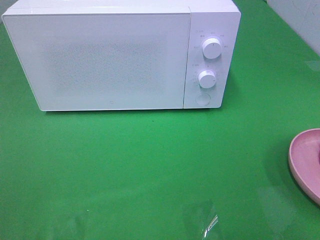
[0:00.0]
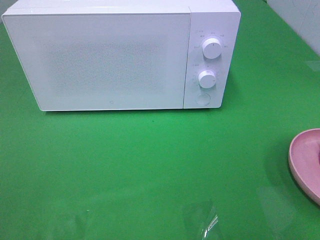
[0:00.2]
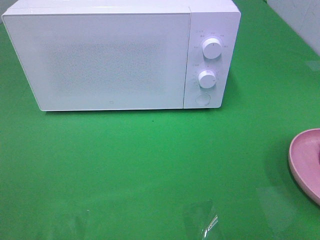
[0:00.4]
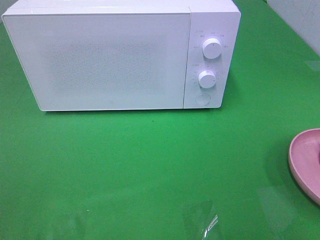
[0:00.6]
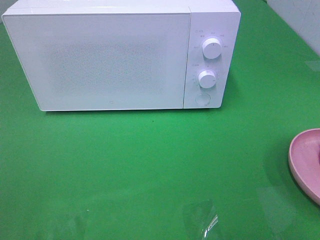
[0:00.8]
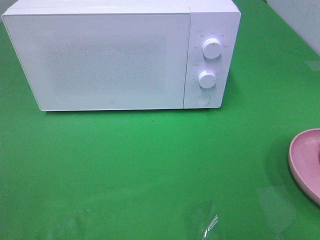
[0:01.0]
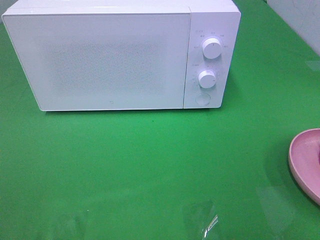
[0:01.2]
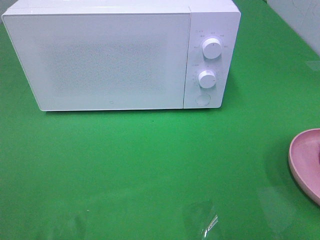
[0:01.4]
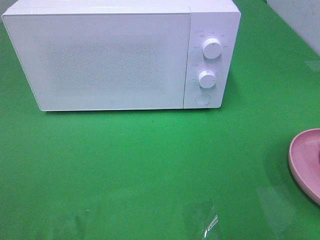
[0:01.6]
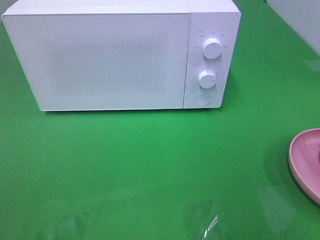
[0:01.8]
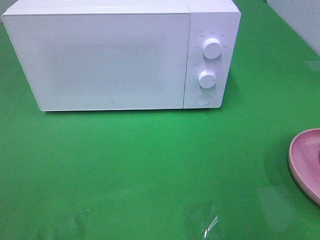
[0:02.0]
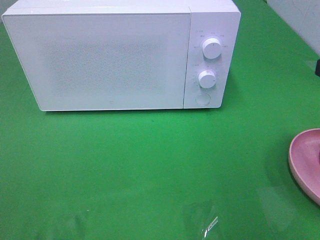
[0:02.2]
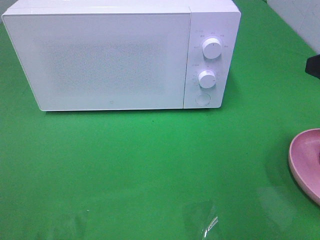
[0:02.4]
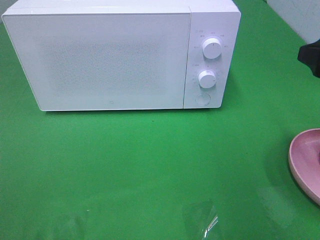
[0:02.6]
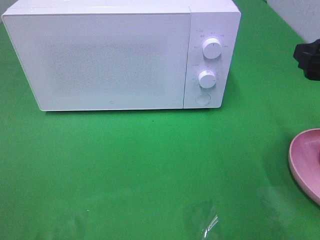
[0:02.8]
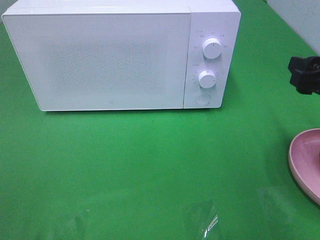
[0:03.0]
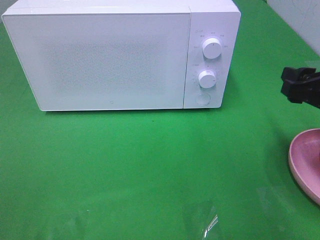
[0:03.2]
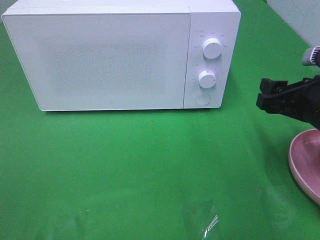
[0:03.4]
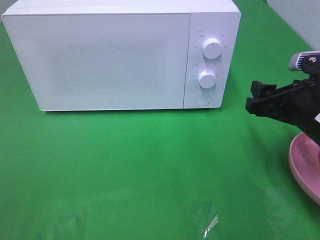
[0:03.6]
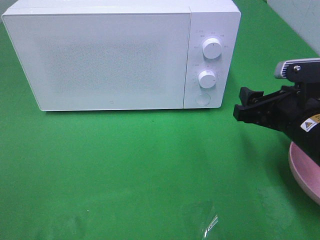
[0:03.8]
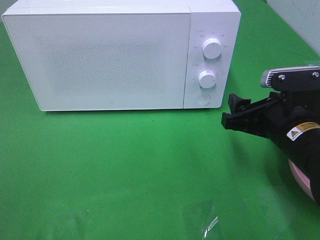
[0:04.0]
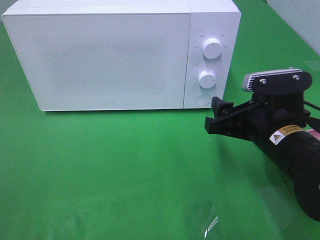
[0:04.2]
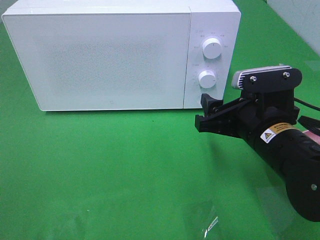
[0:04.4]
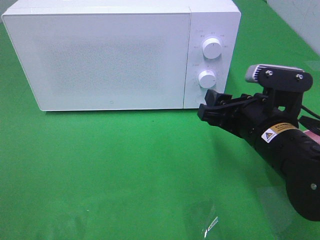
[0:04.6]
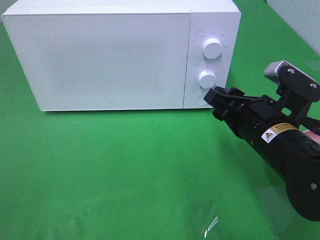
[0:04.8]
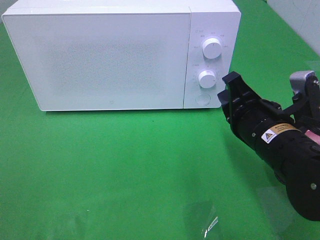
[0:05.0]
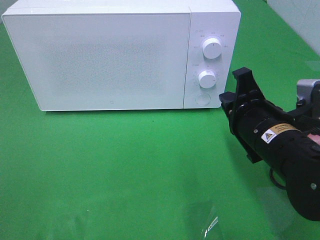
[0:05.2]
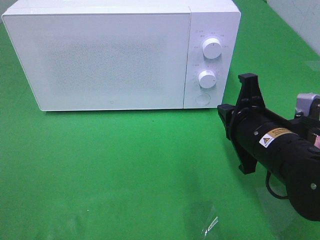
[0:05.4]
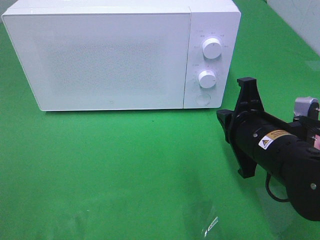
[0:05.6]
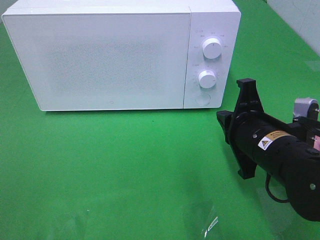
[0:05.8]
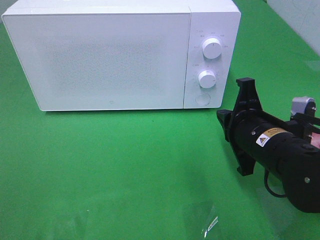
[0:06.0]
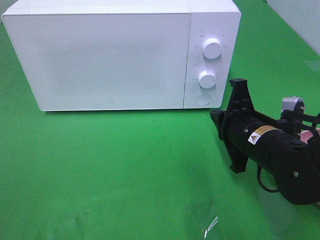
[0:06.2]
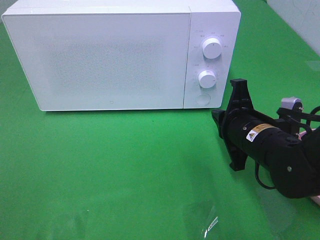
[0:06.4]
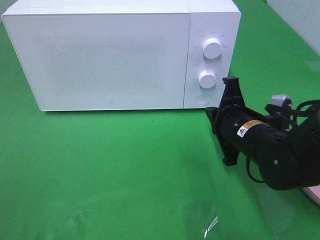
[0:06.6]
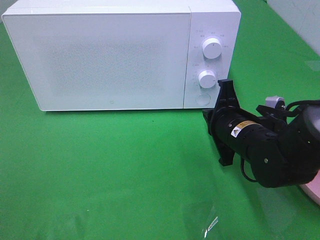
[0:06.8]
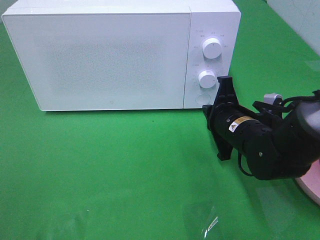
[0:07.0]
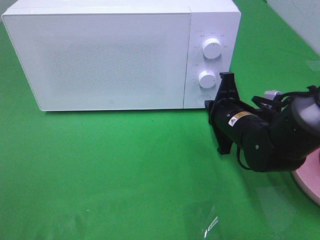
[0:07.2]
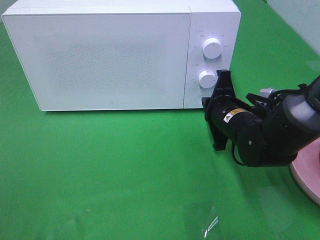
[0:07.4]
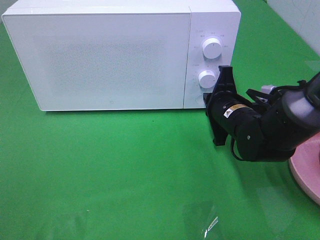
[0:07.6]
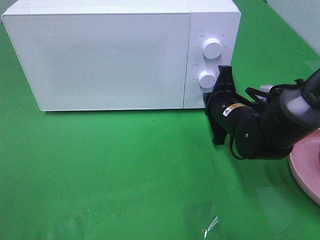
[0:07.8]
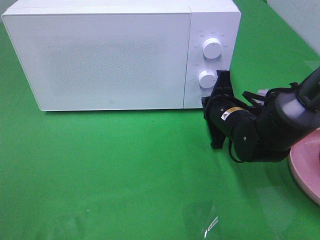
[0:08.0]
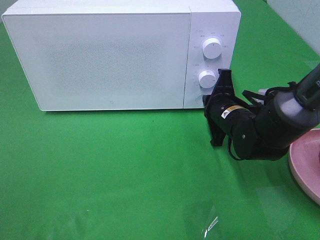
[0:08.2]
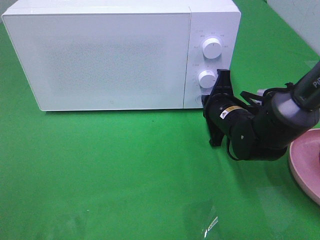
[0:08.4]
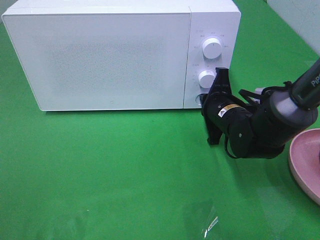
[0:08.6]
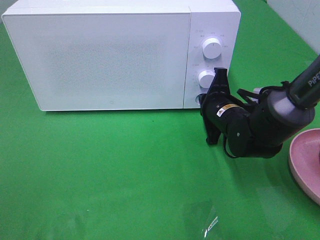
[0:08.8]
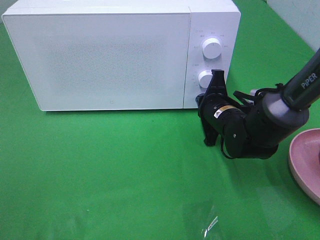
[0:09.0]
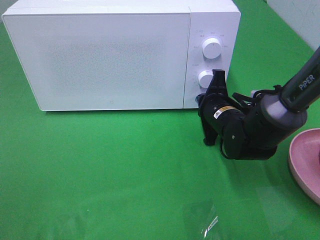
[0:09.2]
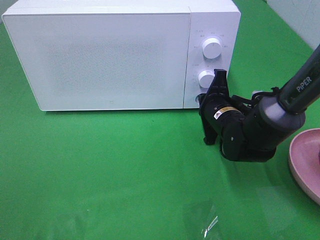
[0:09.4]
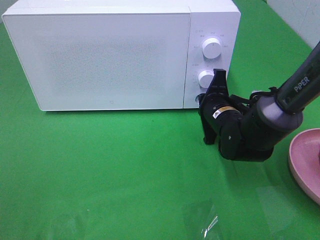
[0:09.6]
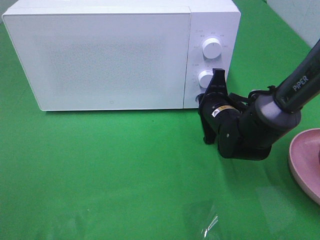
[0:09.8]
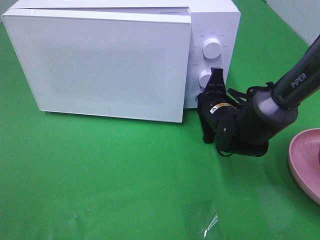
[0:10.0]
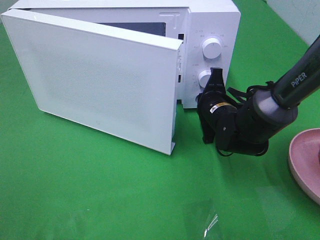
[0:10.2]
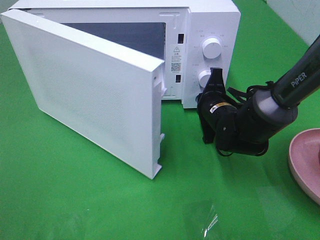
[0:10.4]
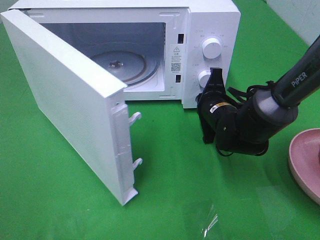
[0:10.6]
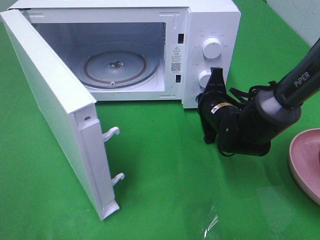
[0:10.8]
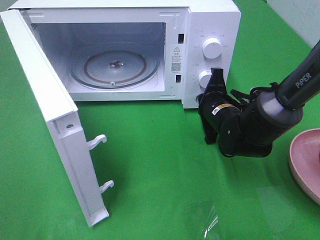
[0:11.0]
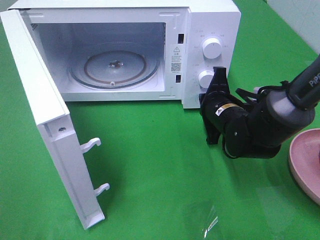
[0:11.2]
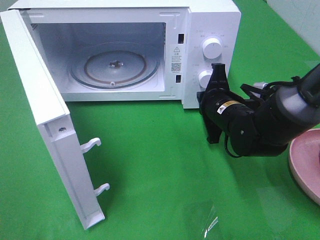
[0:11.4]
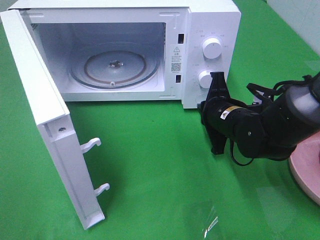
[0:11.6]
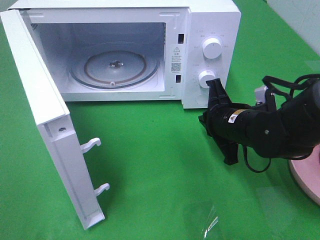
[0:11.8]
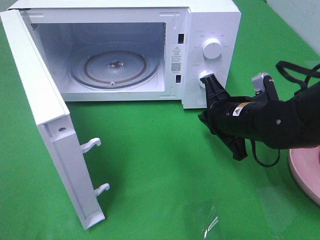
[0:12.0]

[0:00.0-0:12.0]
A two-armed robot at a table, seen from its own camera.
Task of the whole recording: Heat the burger.
Step, 0:00.0 to 0:11.4: Right hand: press the switch.
0:01.6 to 0:03.0: The right gripper goes some 15 cm forward and downward.
0:03.0 to 0:04.4: The right gripper is displaced to the left and downward by about 15 cm.
0:04.4 to 0:06.0: The right gripper closes its fingers.
0:06.0 to 0:07.6: The right gripper shifts roughly 10 cm forward.
0:07.6 to 0:09.0: There are only small adjustments of the grippers.
0:10.4 to 0:12.0: The right gripper is displaced backward and upward by roughly 10 cm.

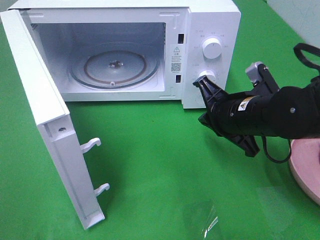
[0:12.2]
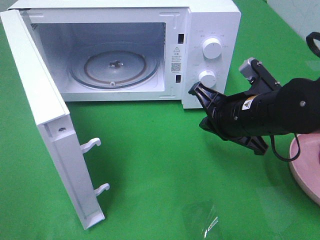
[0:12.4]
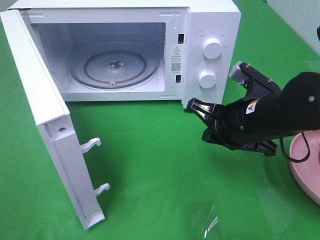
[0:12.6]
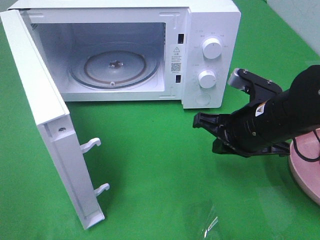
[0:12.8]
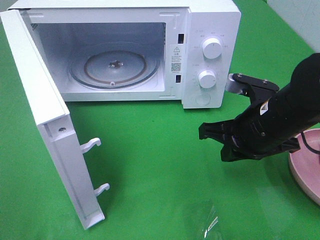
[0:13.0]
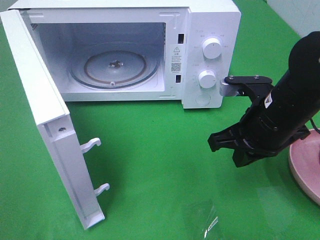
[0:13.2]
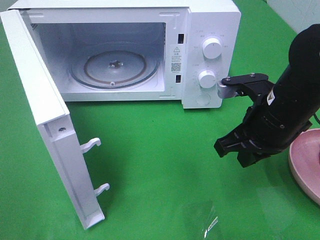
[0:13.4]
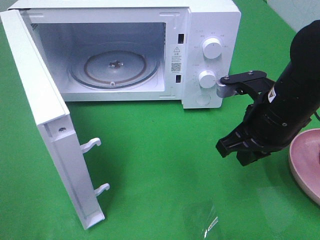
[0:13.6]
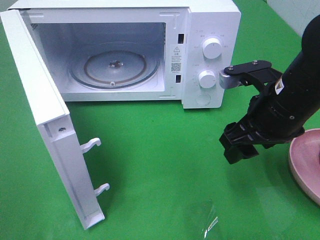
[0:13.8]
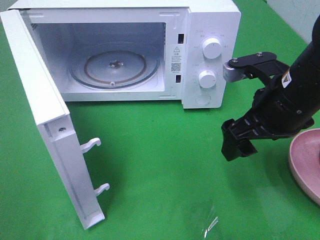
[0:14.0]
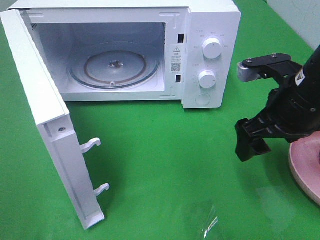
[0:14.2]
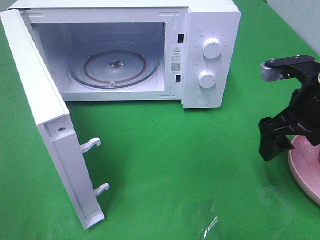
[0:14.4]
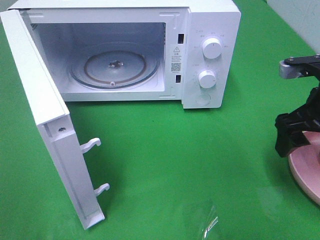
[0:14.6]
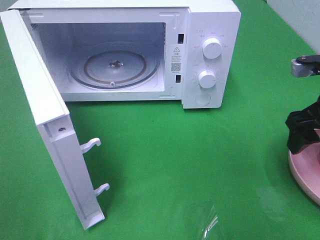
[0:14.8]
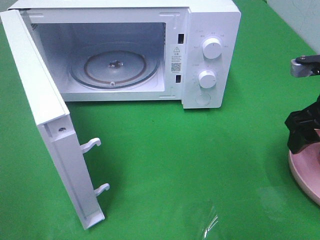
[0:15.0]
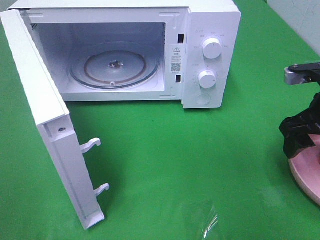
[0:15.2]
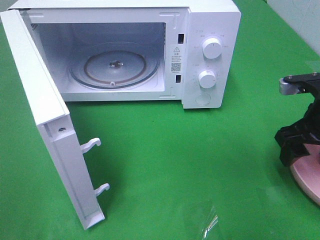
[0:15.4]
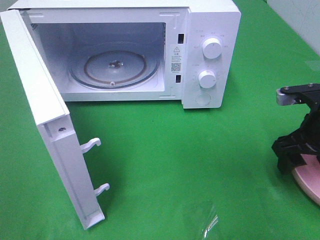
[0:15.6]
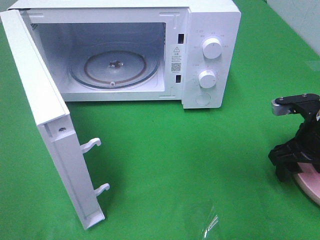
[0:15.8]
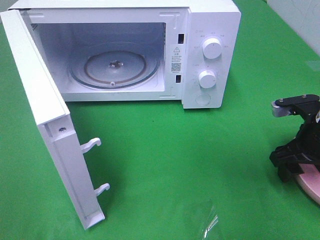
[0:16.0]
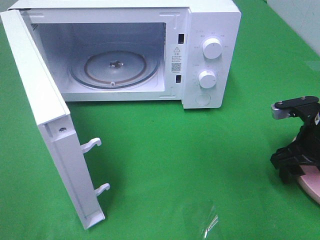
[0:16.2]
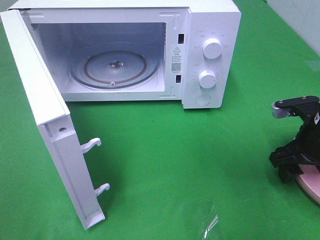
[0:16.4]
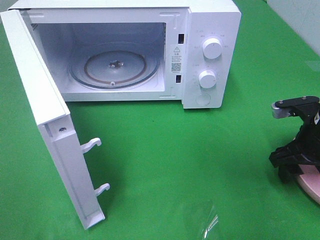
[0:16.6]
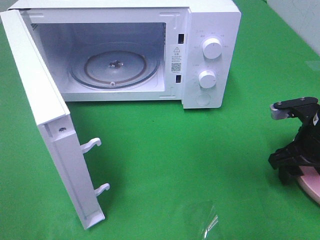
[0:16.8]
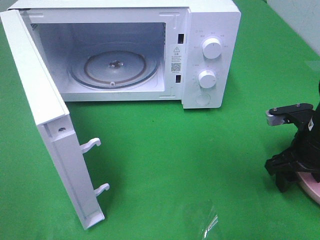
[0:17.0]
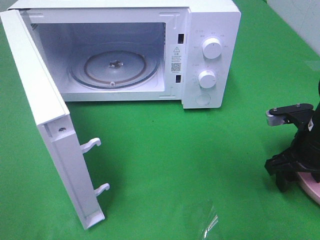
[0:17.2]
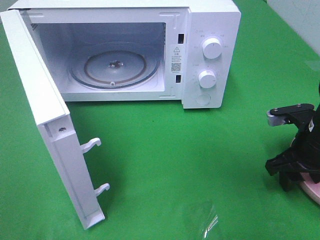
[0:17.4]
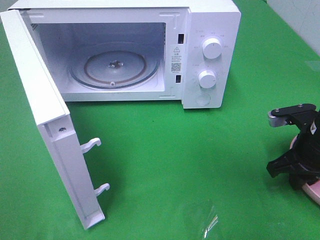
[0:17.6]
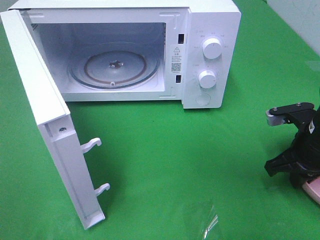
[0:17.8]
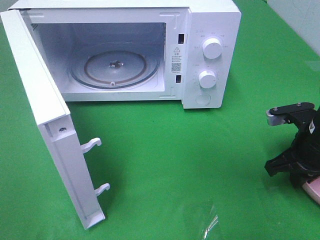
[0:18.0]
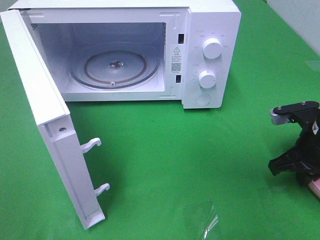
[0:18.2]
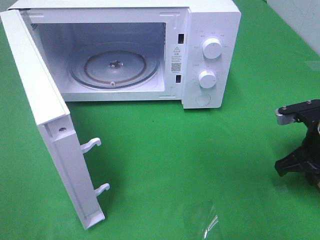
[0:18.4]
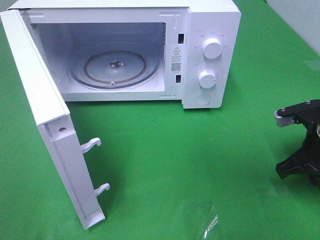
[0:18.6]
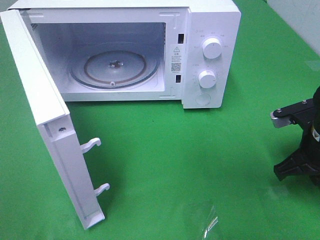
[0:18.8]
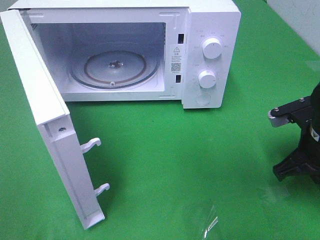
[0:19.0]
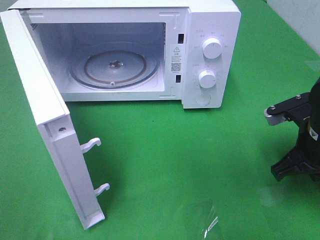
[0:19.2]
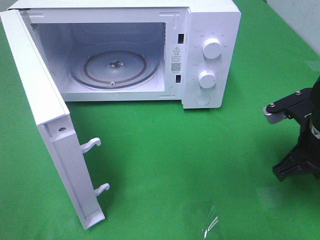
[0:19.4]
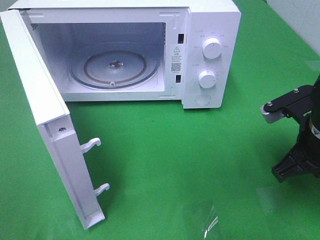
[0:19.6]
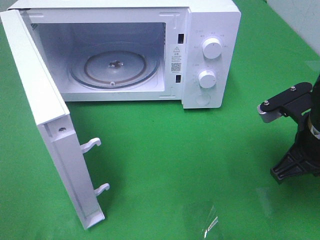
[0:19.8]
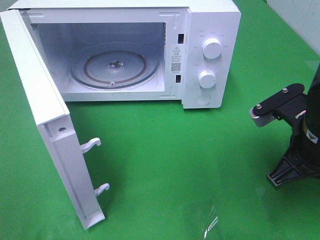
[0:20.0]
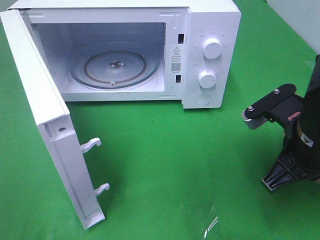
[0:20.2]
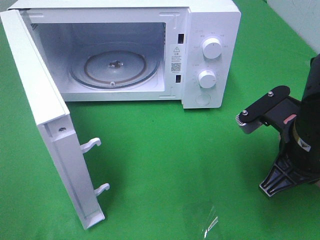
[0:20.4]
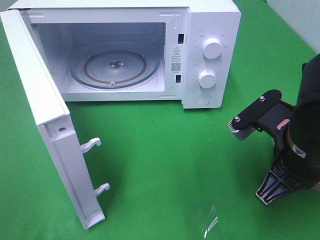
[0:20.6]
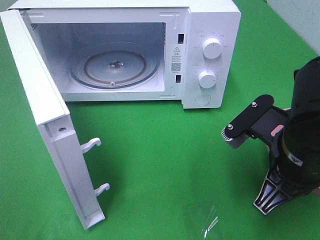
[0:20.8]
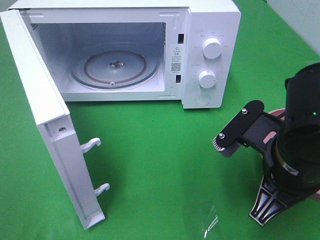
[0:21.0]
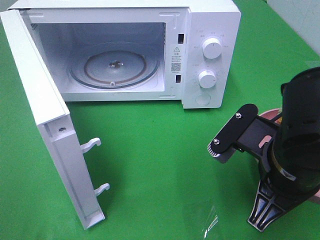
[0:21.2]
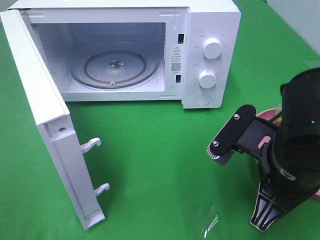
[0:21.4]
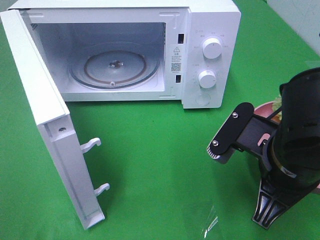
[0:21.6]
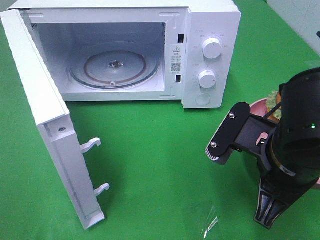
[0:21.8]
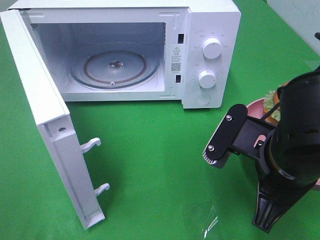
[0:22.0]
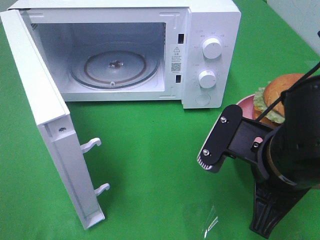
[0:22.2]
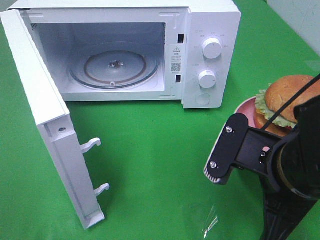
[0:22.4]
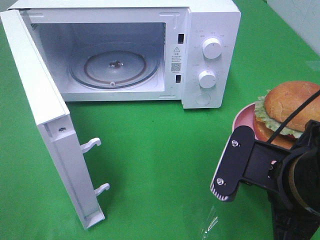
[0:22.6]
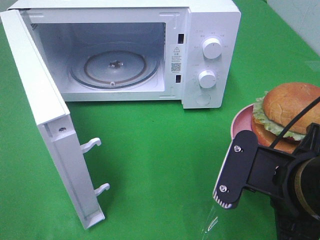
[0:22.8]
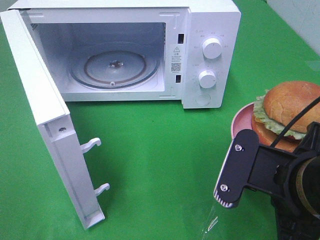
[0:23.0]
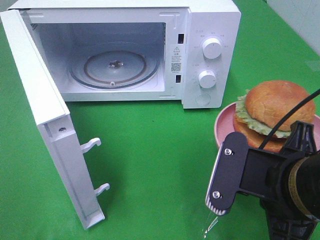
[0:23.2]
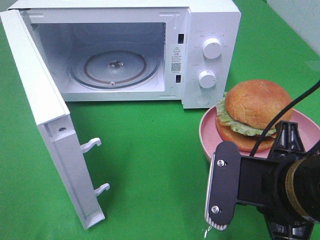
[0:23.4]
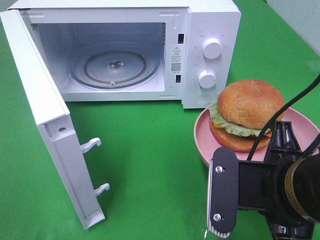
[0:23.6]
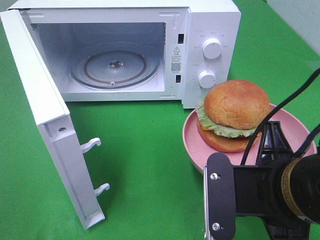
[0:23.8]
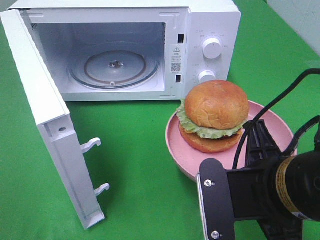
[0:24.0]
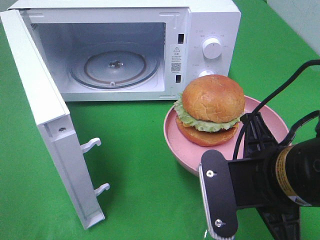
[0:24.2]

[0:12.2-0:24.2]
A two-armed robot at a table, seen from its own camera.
Task of the whole recording: Heat the burger.
Step, 0:12.2 to 0:18.4: Right hand: grab the plate with the hamburger.
0:12.2 to 0:13.8: The right gripper goes approximately 5 cm upward, and opens its fingers.
0:13.8 to 0:15.2: The right gripper goes about 10 cm to the right.
0:15.2 to 0:16.6: The right gripper shifts some 5 cm downward.
0:16.6 to 0:18.2: The right gripper closes its fingers.
0:18.2 to 0:19.8: The right gripper is displaced upward and to the left by approximately 10 cm.
0:19.8 to 0:21.2: The right gripper heads to the left and backward, covering roughly 10 cm.
0:21.2 to 0:22.6: There are only small adjustments of the grippers.
